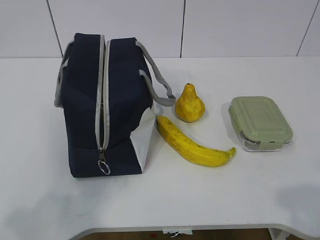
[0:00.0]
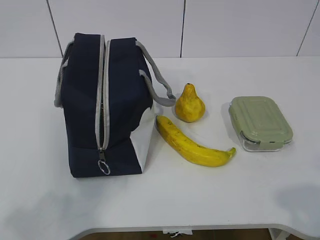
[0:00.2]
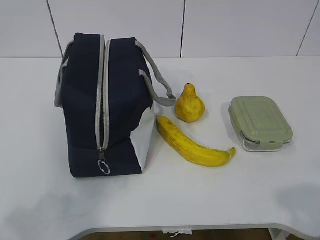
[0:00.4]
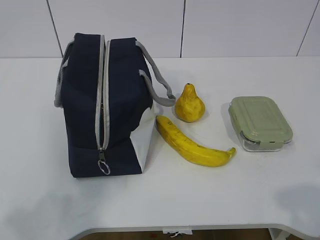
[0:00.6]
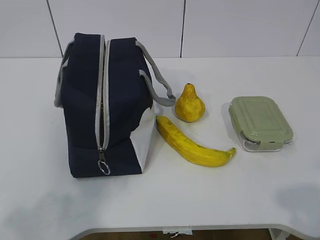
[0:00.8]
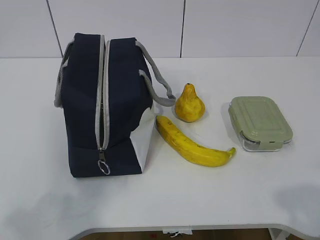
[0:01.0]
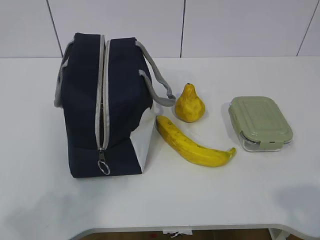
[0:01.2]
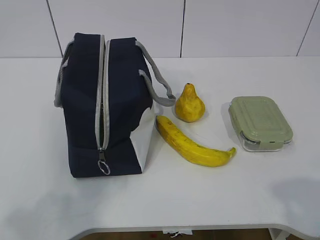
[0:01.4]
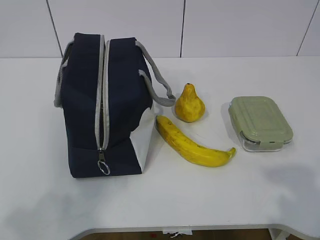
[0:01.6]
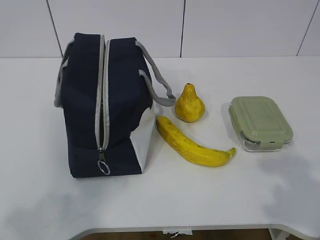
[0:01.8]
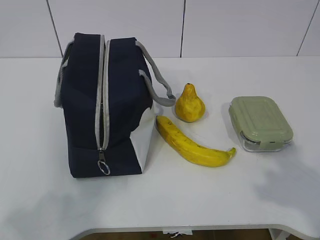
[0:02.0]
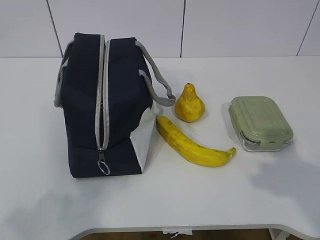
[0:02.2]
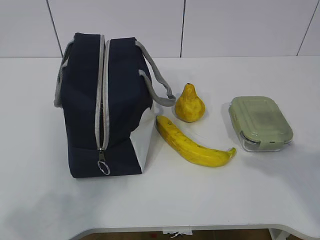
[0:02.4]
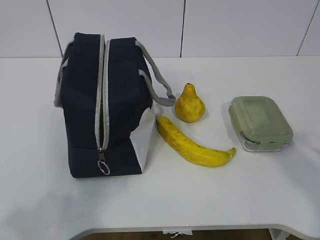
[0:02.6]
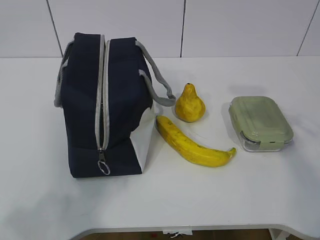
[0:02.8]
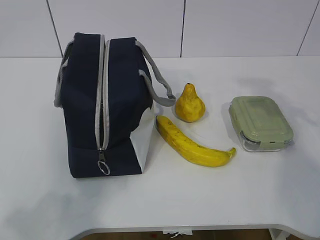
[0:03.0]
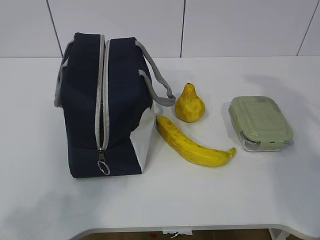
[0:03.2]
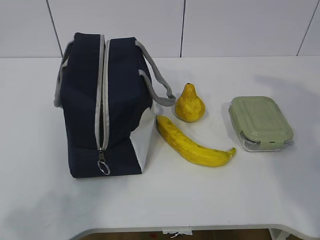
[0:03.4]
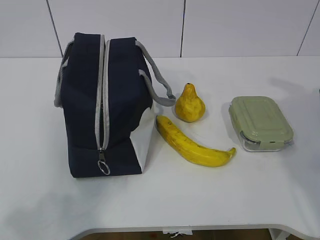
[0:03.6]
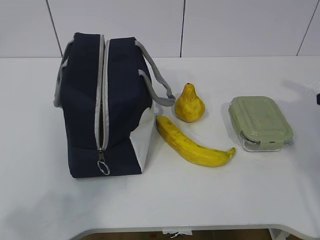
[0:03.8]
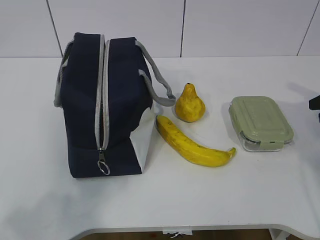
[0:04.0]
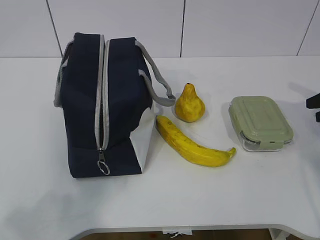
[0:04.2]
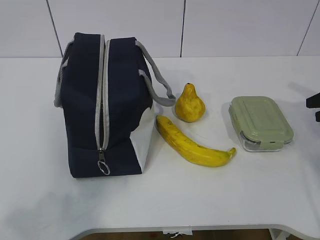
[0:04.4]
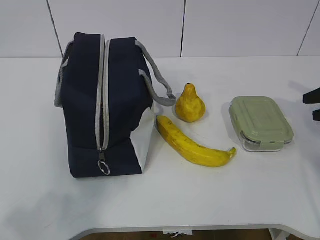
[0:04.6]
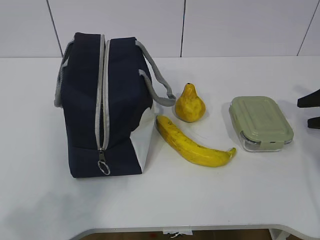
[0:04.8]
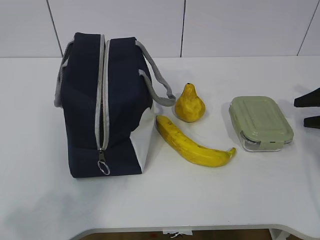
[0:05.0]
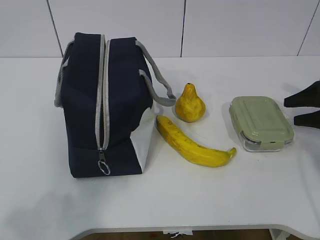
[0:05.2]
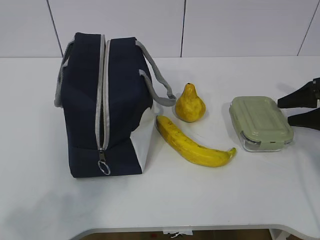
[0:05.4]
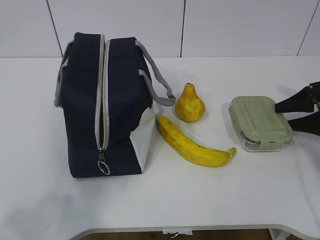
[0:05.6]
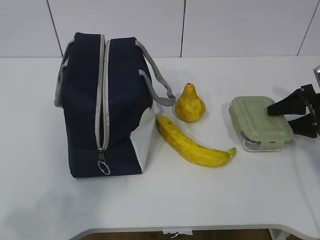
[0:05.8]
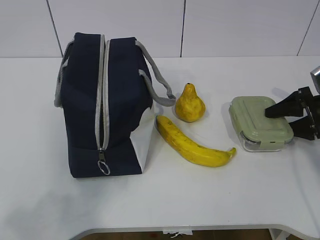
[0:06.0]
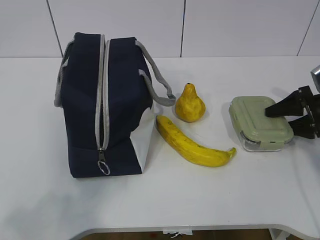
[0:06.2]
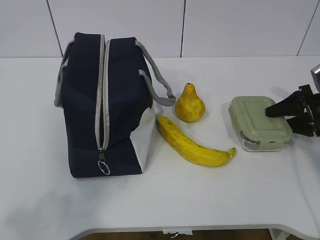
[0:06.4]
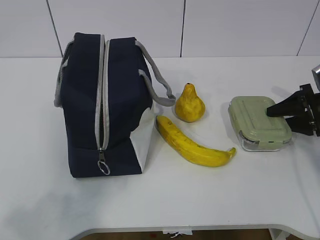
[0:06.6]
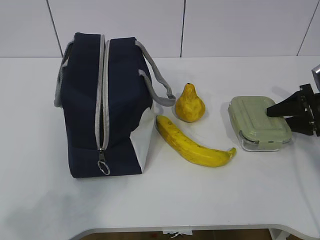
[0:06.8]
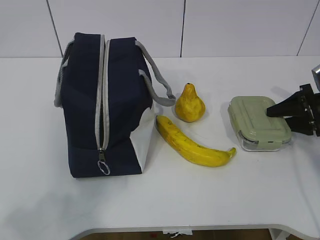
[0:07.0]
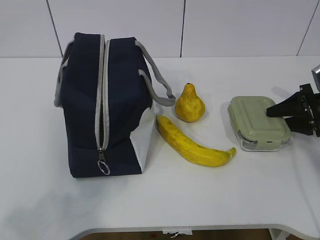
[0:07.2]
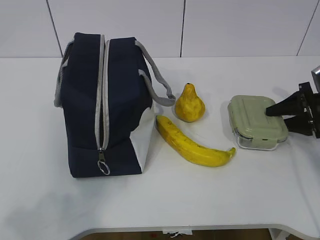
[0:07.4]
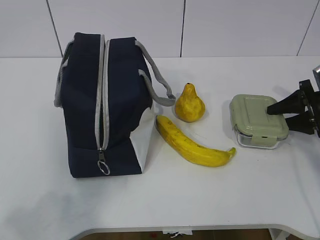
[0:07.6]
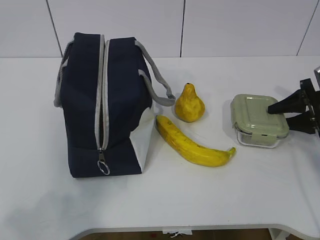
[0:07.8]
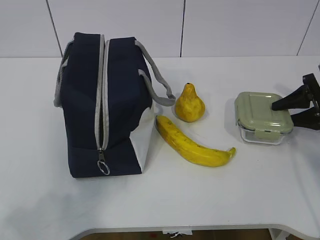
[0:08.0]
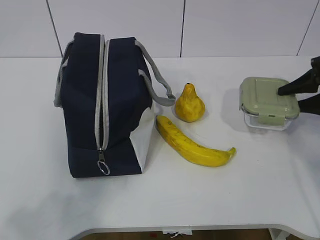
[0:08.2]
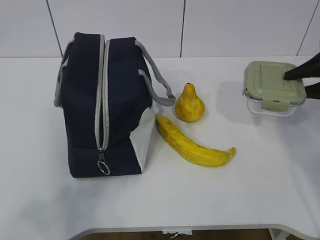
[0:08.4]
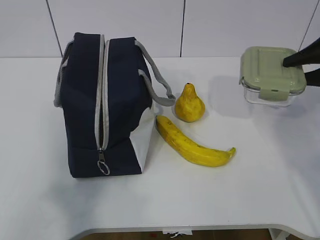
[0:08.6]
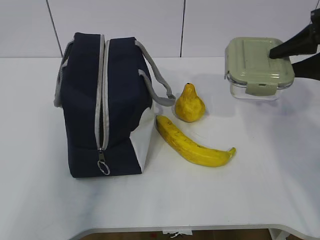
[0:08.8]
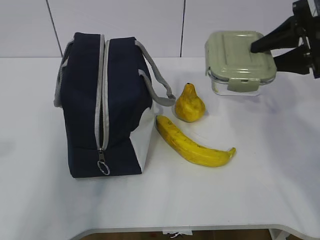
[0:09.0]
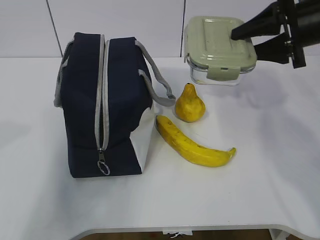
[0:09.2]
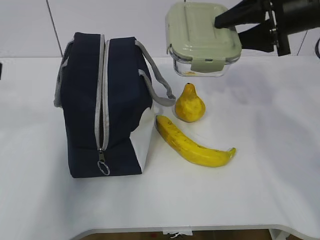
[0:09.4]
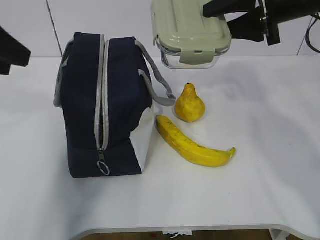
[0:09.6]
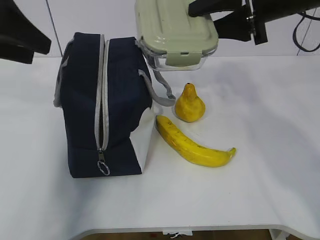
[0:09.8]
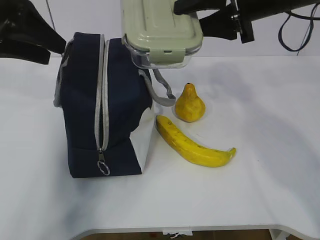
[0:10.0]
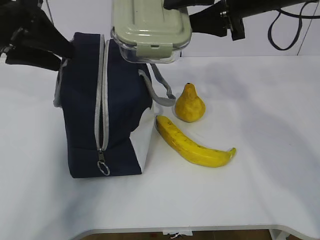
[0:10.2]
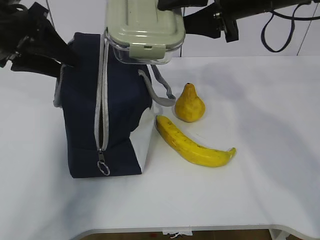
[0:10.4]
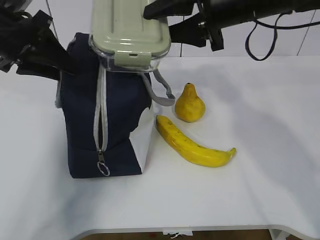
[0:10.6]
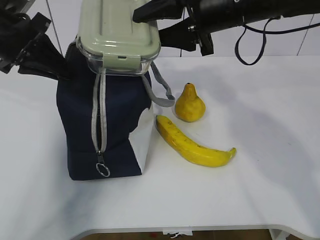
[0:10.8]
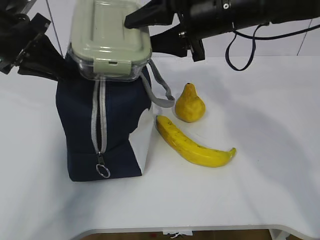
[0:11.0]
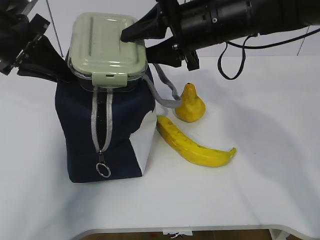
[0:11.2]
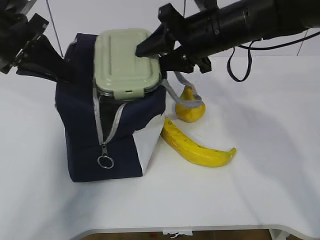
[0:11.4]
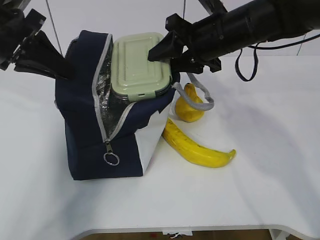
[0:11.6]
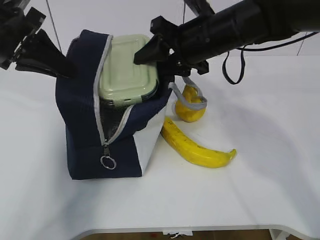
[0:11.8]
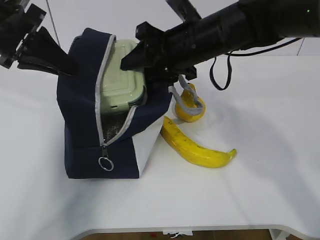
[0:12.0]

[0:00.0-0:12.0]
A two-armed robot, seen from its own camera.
Step, 0:05.6 to 0:09.0: Grab the lunch bag with your left hand.
Step, 0:09.2 to 0:11.6: Place it into the bag with your right hand.
0:01.6 to 0:03.0: The right gripper is displaced forward by about 25 cm.
0:03.0 to 0:04.4: The right gripper goes approximately 20 cm downward, to the right and forward.
0:04.4 to 0:06.0: The right gripper shifts approximately 5 cm downward.
0:06.0 to 0:07.6: The grippers move only a little.
0:07.6 to 0:09.0: The left gripper is displaced forward and upward by roughly 10 cm. Meanwhile the right gripper travels upward and to the left by about 20 cm.
0:09.0 to 0:10.4: The left gripper travels forward by approximately 25 cm. The right gripper goes roughly 15 cm to the left.
0:10.4 to 0:12.0: The right gripper travels downward and to the left by some 10 cm. The left gripper closes.

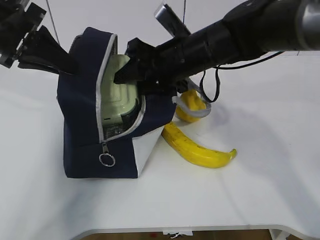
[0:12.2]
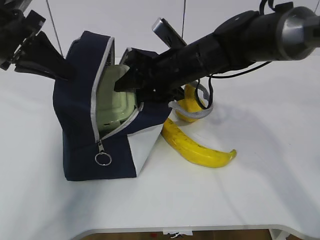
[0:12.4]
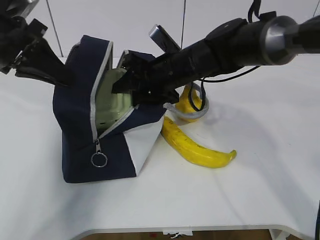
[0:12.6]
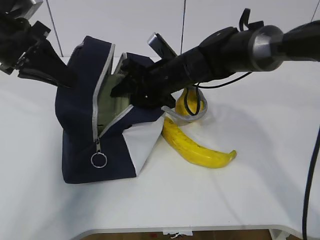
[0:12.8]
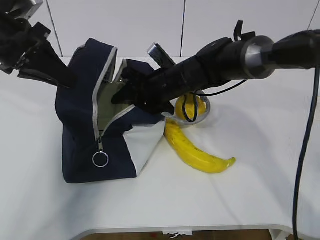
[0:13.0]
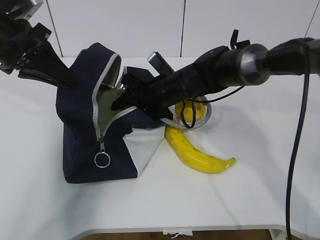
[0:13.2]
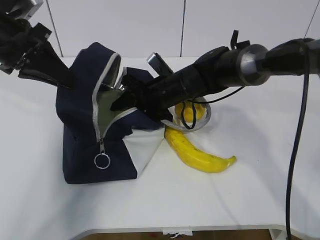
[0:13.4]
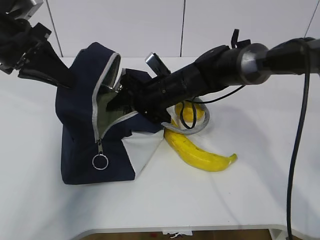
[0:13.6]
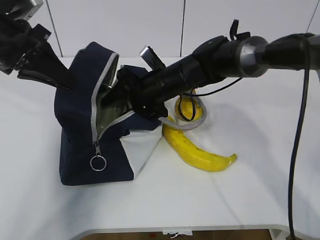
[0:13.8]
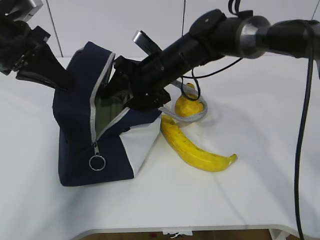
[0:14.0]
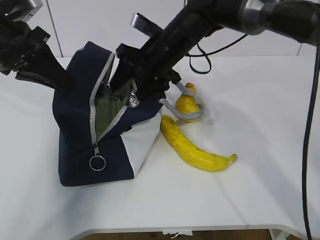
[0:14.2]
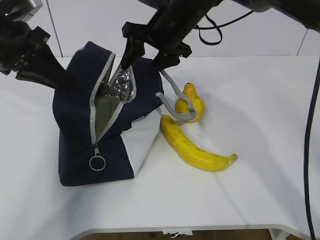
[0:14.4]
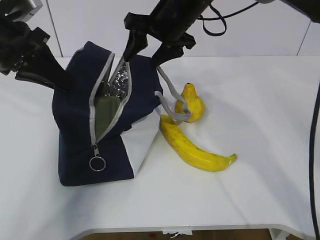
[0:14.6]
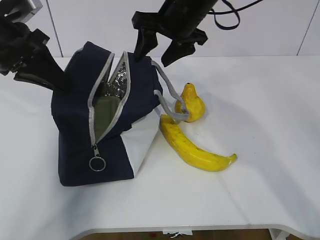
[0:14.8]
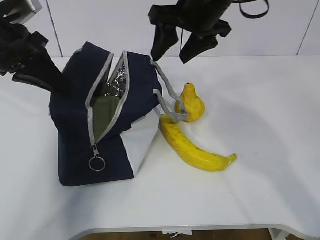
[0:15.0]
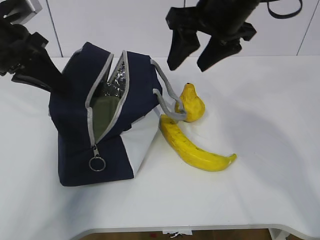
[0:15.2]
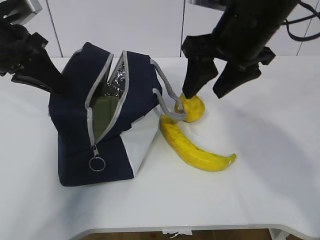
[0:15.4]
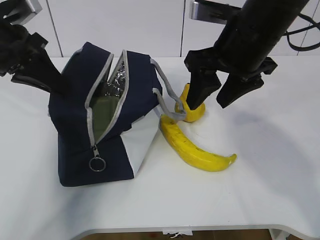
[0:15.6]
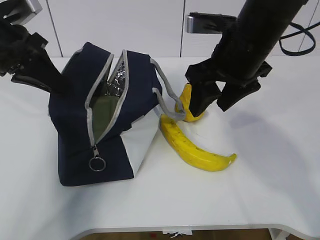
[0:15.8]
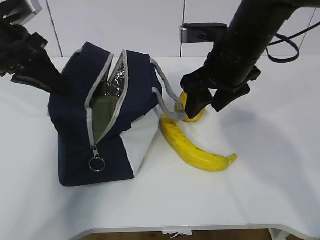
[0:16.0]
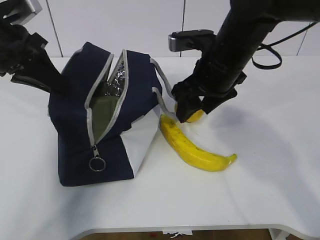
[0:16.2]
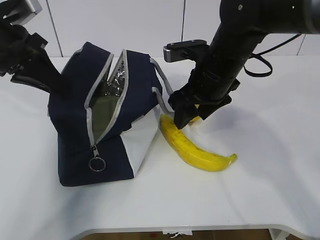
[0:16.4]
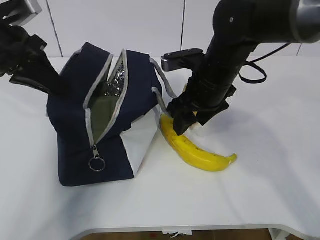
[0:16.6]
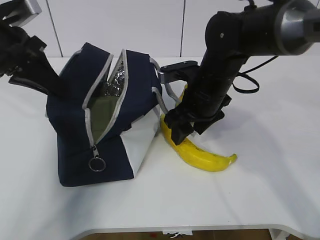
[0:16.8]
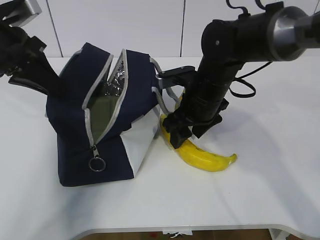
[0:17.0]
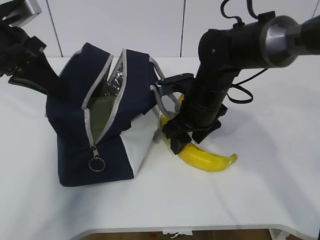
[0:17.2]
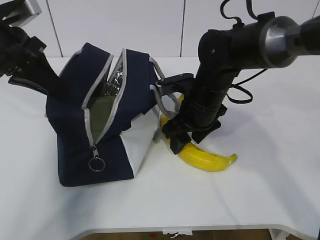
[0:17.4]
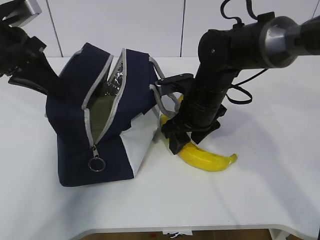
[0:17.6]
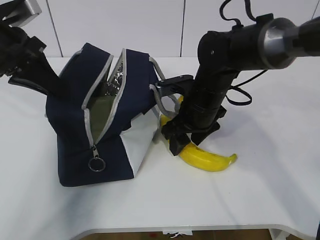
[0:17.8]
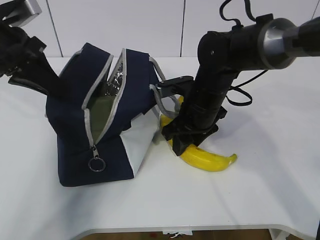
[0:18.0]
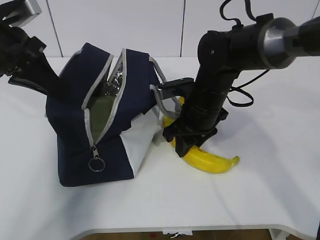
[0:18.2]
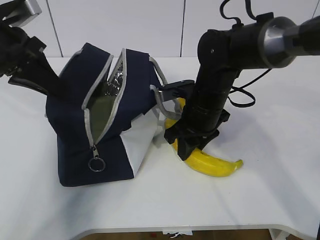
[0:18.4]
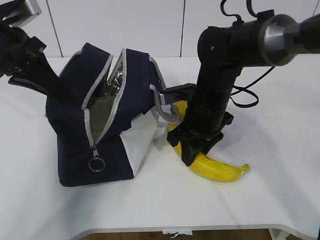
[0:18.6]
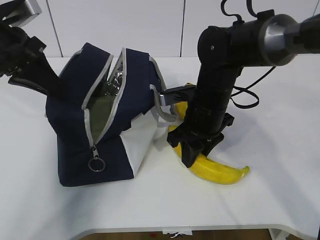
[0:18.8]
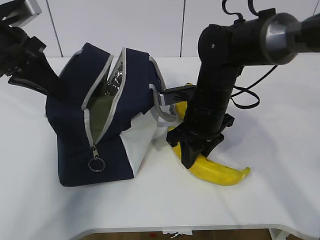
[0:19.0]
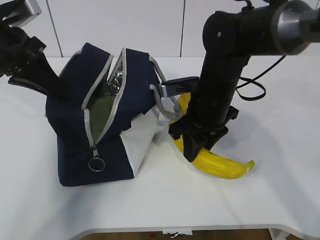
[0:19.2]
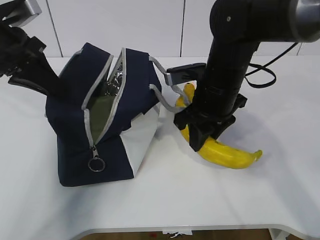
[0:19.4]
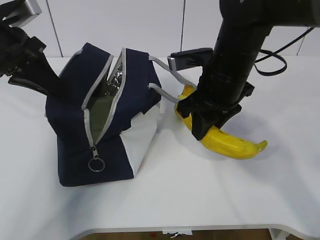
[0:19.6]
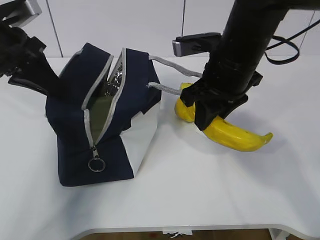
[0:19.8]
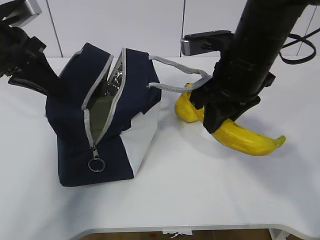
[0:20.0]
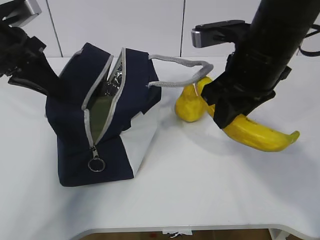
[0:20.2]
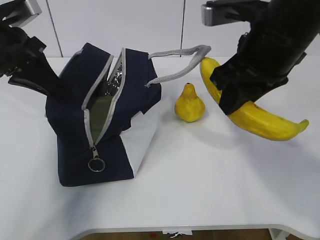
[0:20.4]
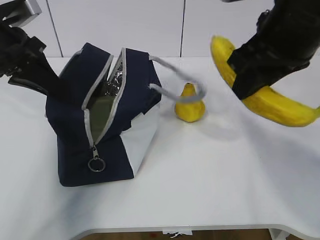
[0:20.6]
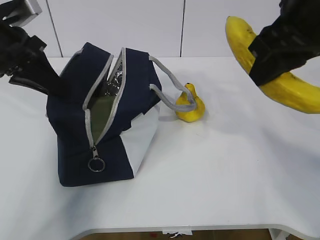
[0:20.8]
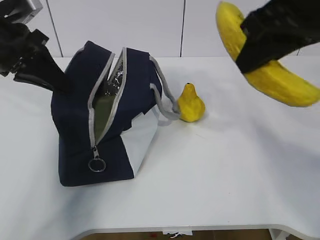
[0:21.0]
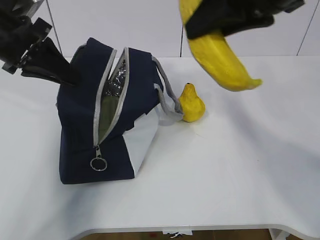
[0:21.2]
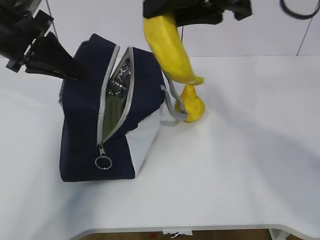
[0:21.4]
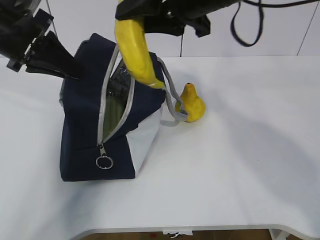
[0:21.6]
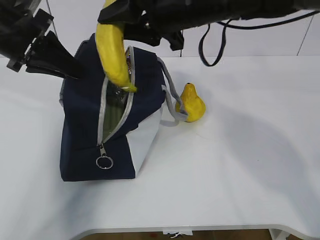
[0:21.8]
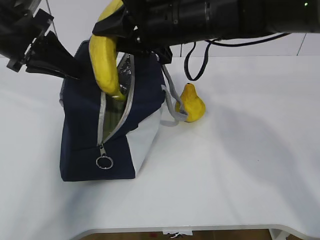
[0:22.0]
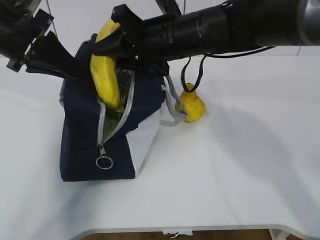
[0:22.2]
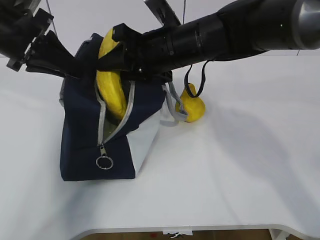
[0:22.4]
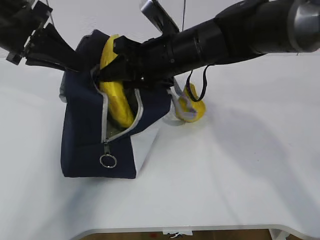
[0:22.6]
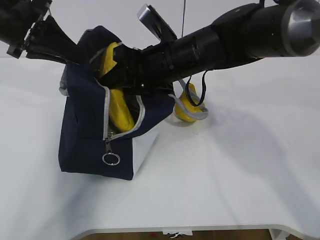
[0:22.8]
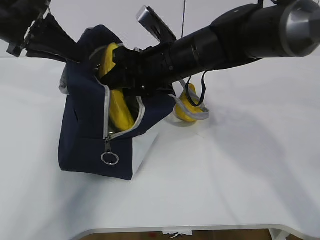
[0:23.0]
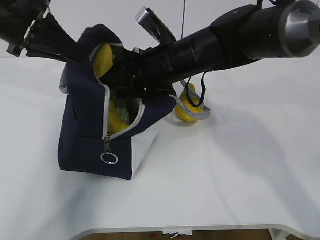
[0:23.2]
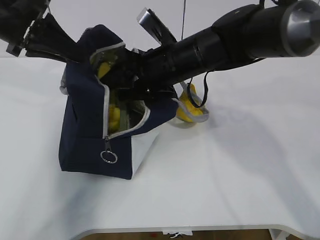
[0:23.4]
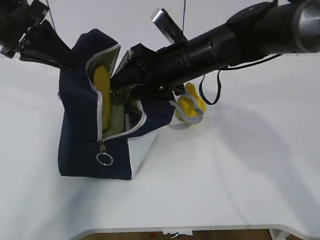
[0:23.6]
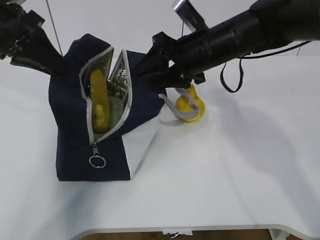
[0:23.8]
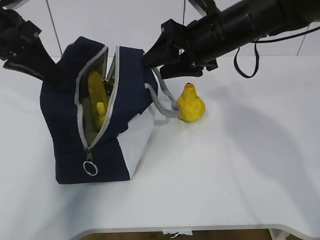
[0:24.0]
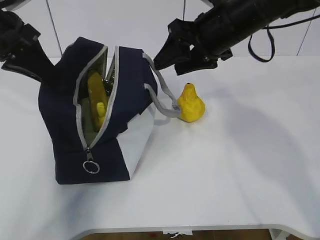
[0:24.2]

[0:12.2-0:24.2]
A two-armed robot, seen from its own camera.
Step, 0:12.2 to 0:15.0: Grab the banana with your right hand.
Step, 0:15.2 to 0:19.8: Place it into the bag with your right hand.
Step, 0:20.0 to 0:22.4: Grab the pear with your right hand.
0:12.2 to 0:13.8: The right gripper moves downward, approximately 10 cm.
0:13.8 to 0:15.2: The right gripper travels upward and to the right by some 20 cm.
0:15.2 to 0:16.6: The right gripper shifts roughly 15 cm downward.
0:16.6 to 0:18.2: The right gripper is displaced downward by approximately 5 cm, and closes its fingers.
0:18.2 to 0:19.8: The right gripper is displaced upward by about 10 cm.
0:19.8 to 0:21.2: The right gripper shifts roughly 15 cm upward and backward.
0:21.2 to 0:22.6: The right gripper moves downward, forward and to the left, roughly 20 cm.
0:22.6 to 0:24.2: The right gripper heads to the right, covering roughly 10 cm.
